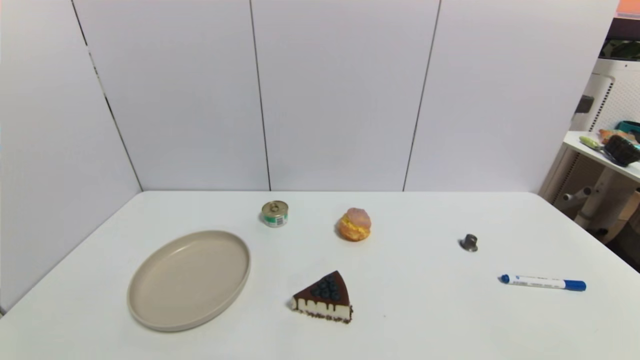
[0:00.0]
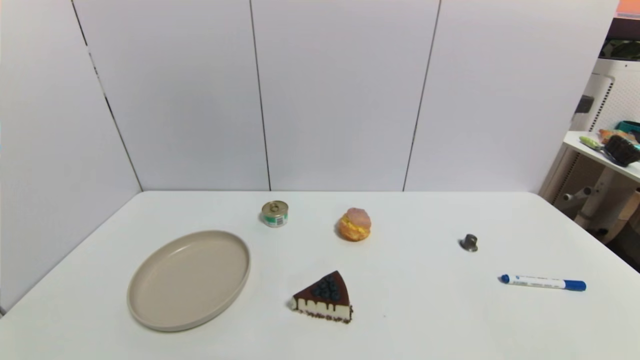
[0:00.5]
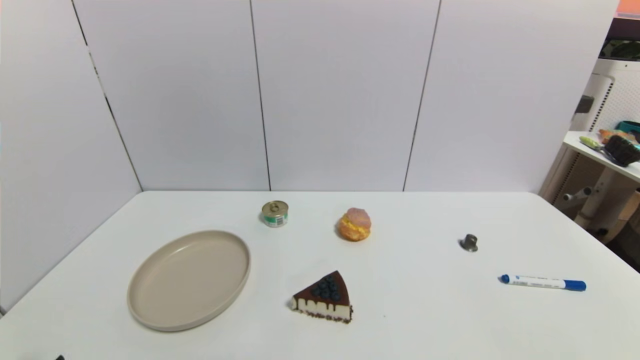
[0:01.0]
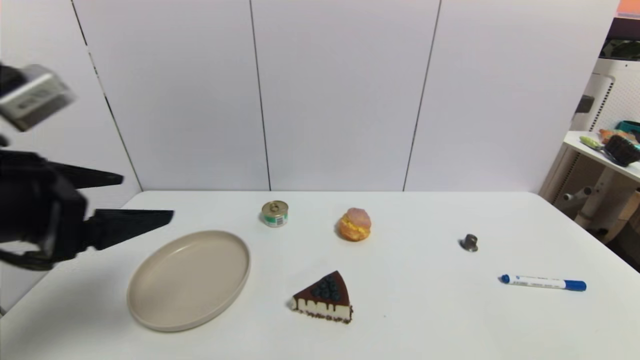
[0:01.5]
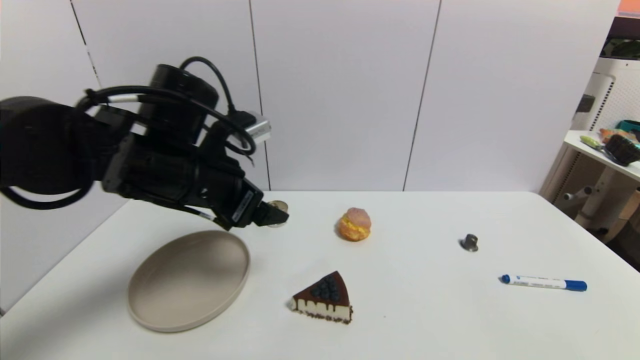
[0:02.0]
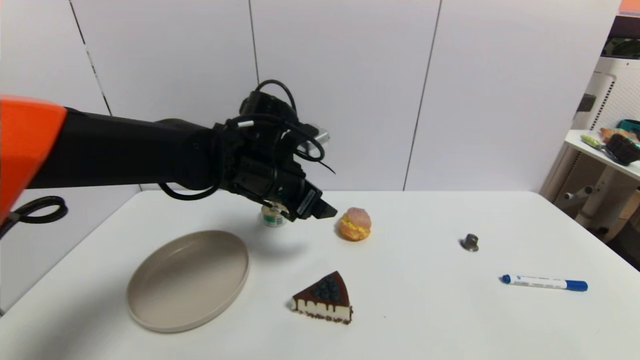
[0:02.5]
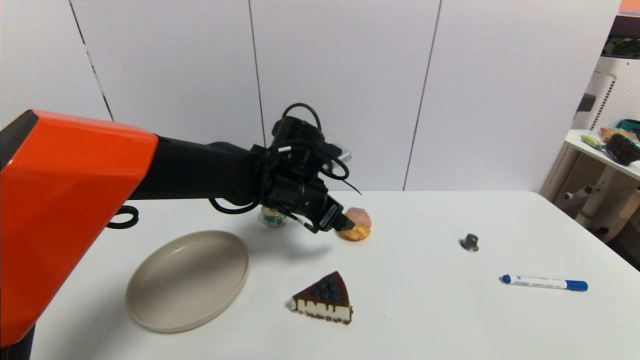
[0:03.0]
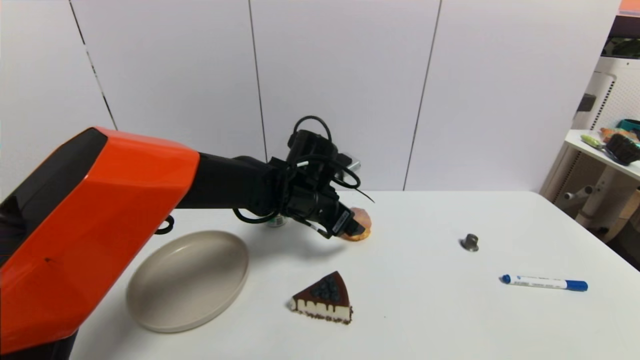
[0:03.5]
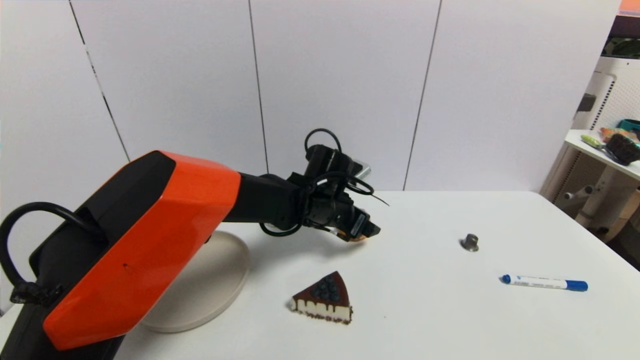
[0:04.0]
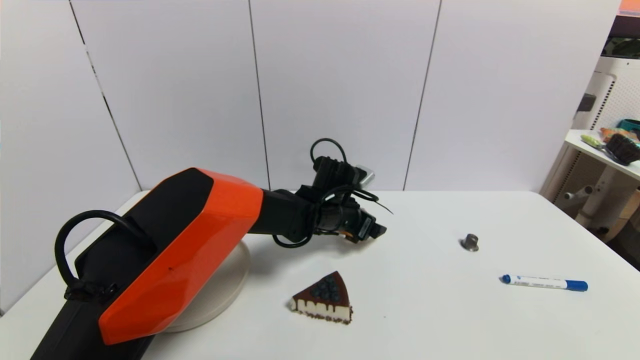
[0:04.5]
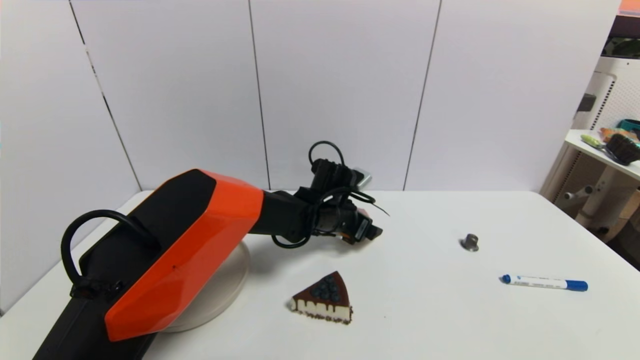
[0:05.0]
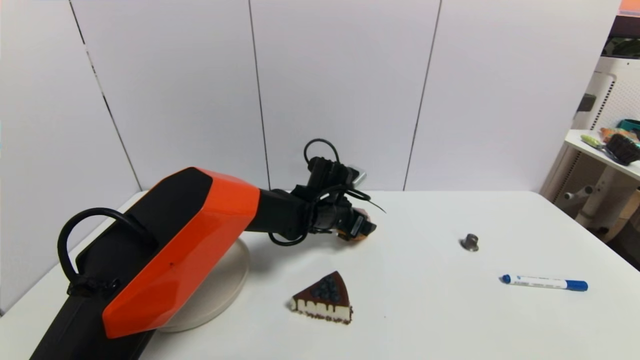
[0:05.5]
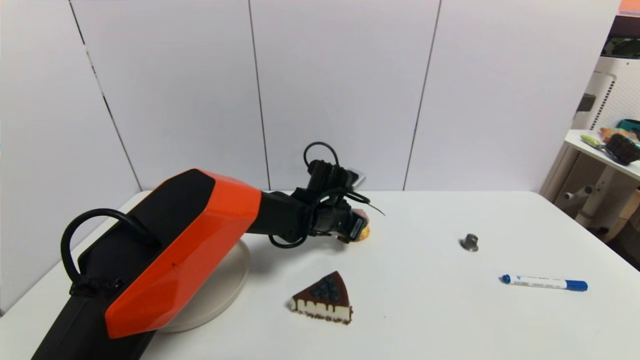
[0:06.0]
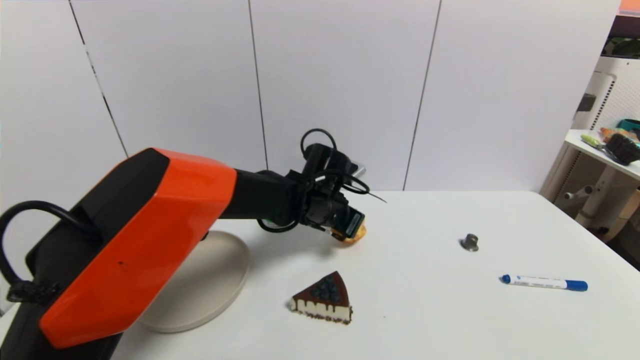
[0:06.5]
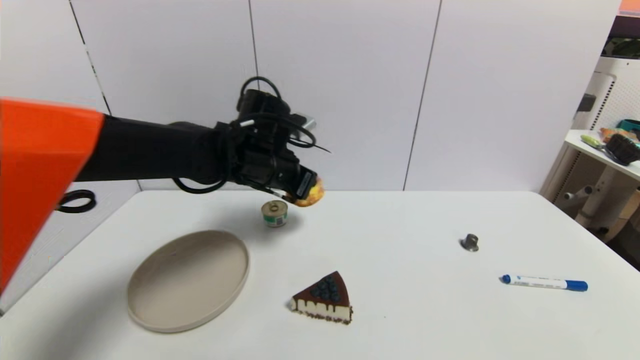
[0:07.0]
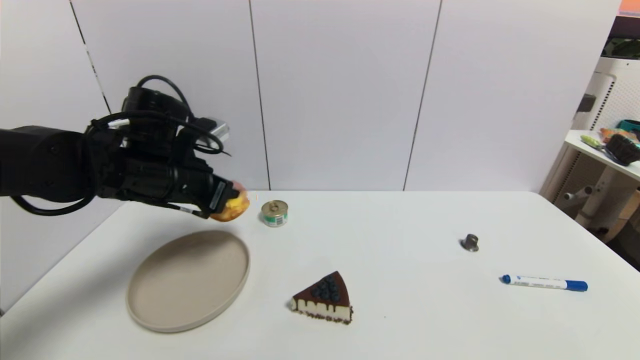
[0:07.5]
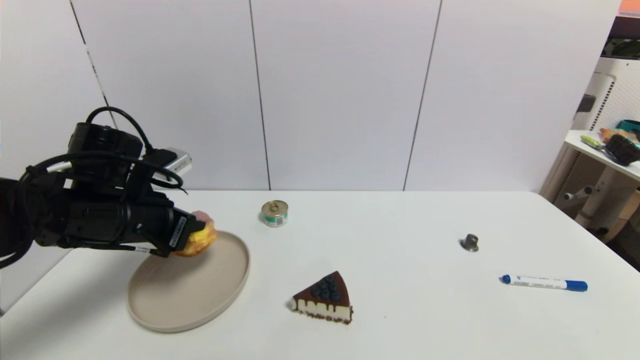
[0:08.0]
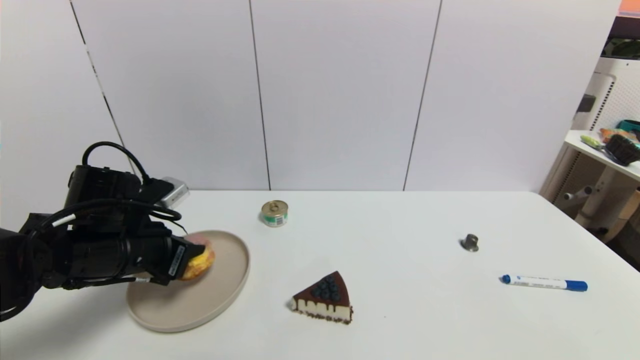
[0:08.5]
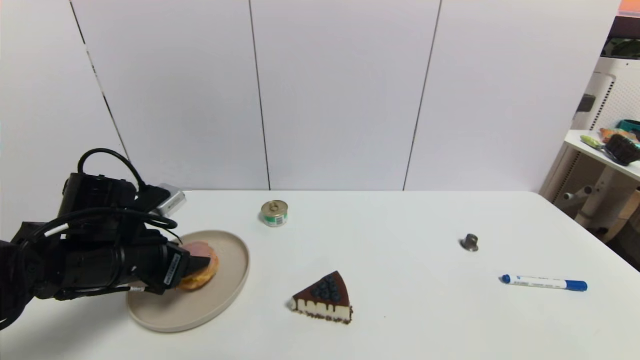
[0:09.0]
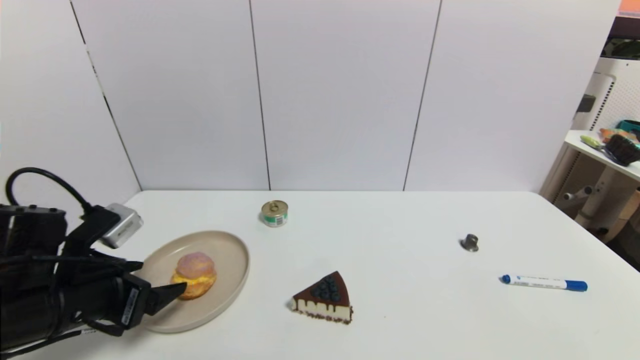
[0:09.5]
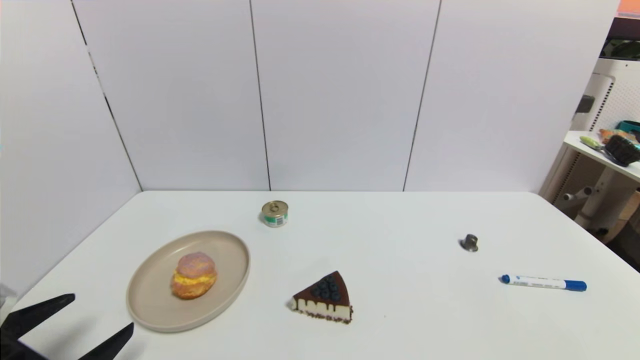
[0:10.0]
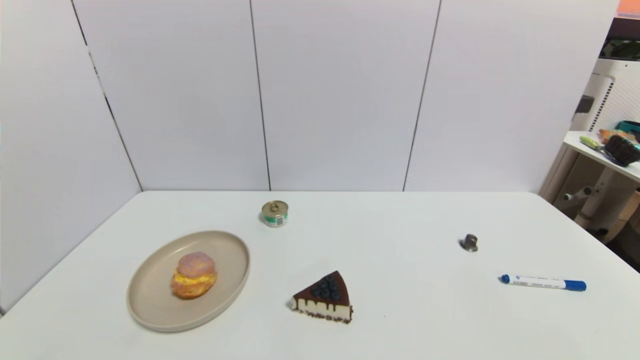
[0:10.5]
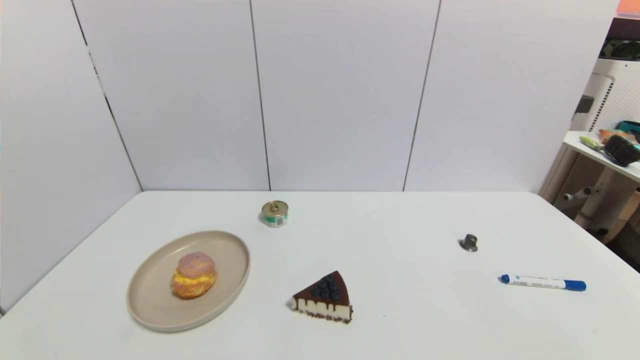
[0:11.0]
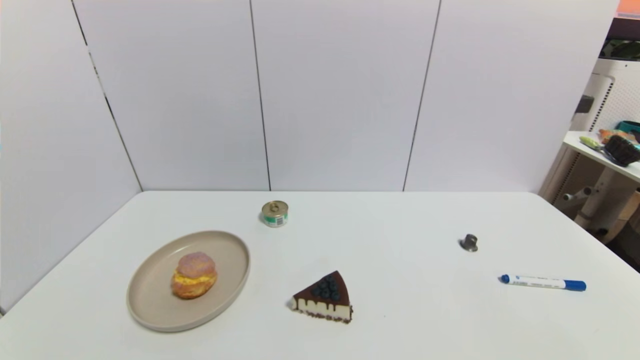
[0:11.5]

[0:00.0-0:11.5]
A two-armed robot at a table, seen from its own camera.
Task of the whole recording: use a gripper to pick the target object and place on the brown plate.
Step, 0:00.0 to 0:06.0: Grasp the round bread with the left gripper.
Step, 0:06.5 to 0:09.0: Place the round bread on the brown plate with the left gripper.
0:00.0 to 0:02.0: The left gripper heads forward, upward and to the right, covering roughly 35 cm.
0:02.0 to 0:04.0: The left gripper moves to the right, downward and forward, approximately 20 cm.
0:04.0 to 0:06.0: The left gripper closes.
0:06.0 to 0:07.5: The left gripper travels to the left, upward and backward by roughly 30 cm.
0:07.5 to 0:09.5: The left gripper heads backward, downward and to the left, covering some 15 cm, and opens.
0:09.5 to 0:11.5: The left gripper moves backward and downward, some 20 cm.

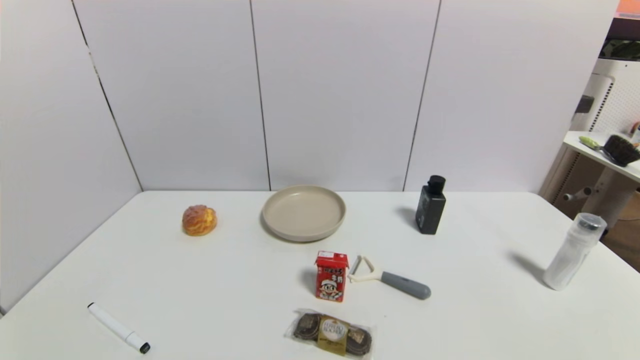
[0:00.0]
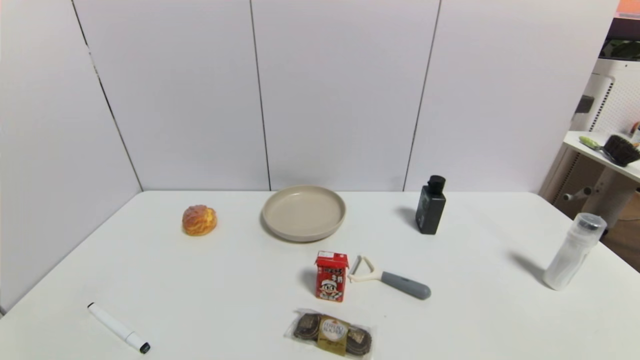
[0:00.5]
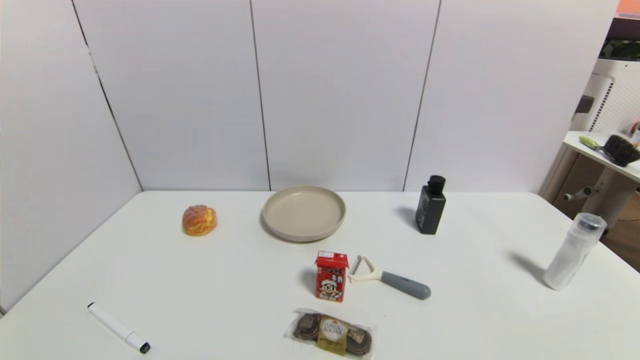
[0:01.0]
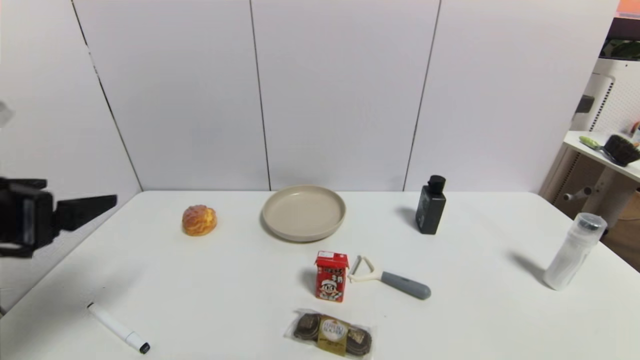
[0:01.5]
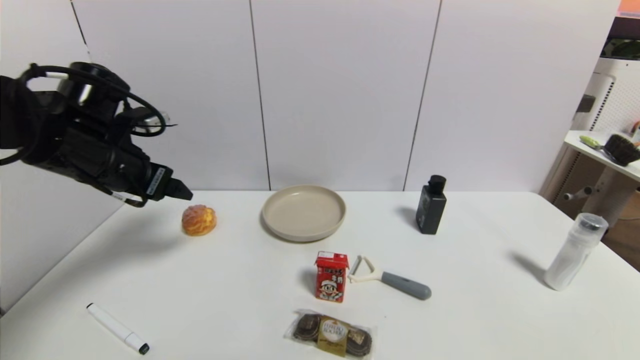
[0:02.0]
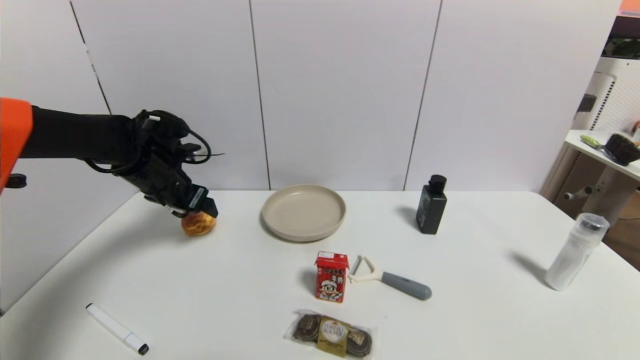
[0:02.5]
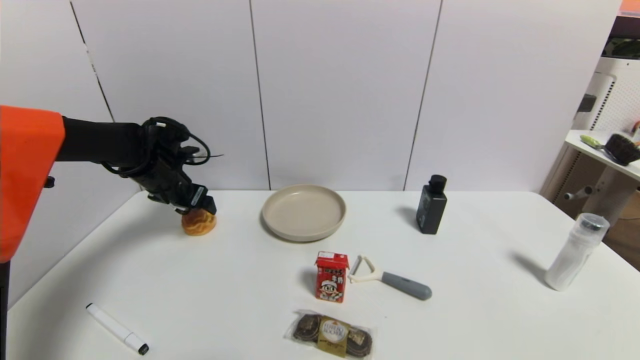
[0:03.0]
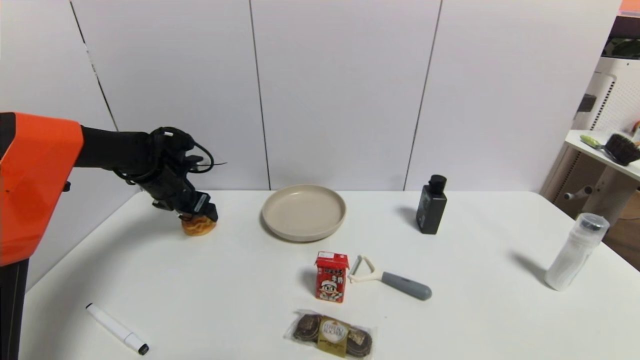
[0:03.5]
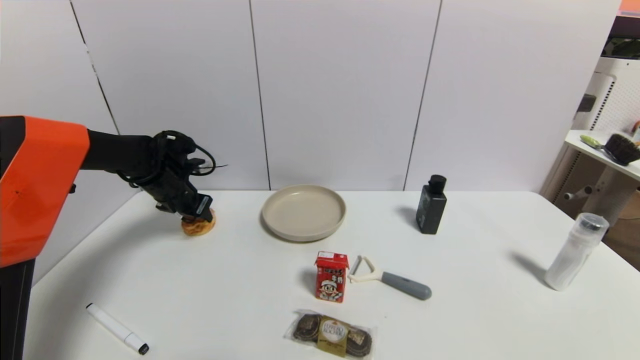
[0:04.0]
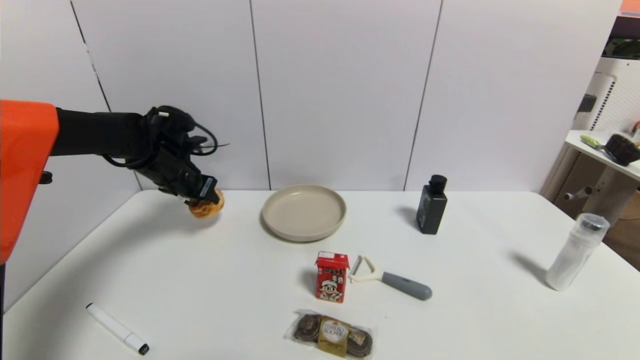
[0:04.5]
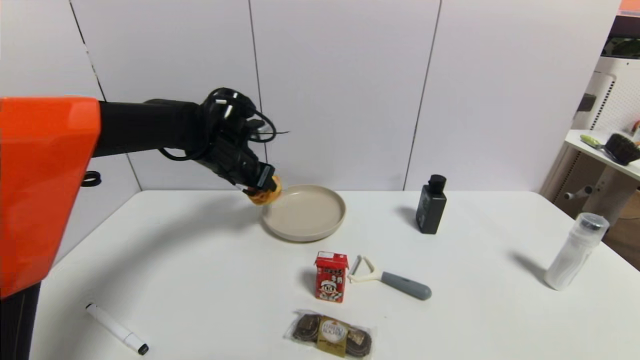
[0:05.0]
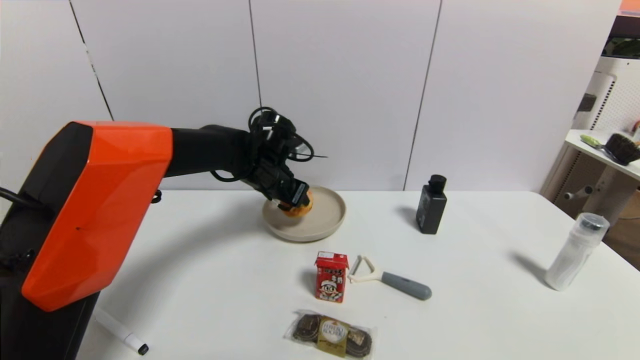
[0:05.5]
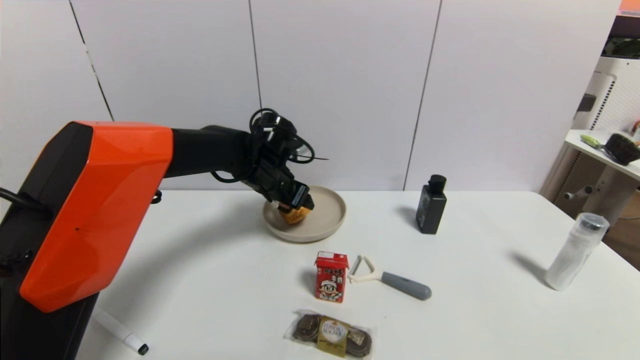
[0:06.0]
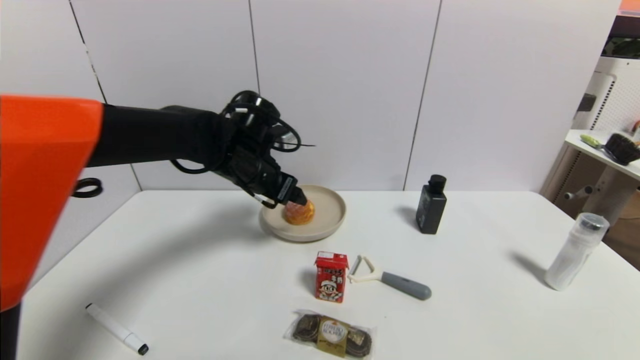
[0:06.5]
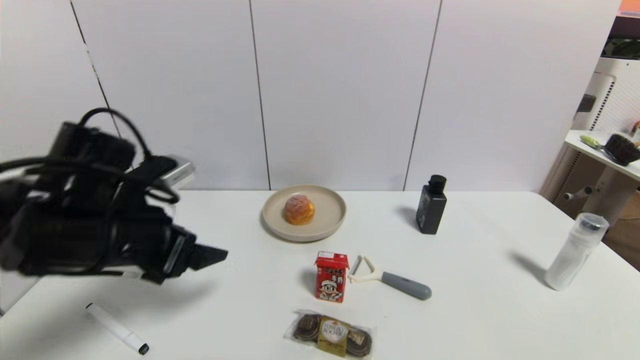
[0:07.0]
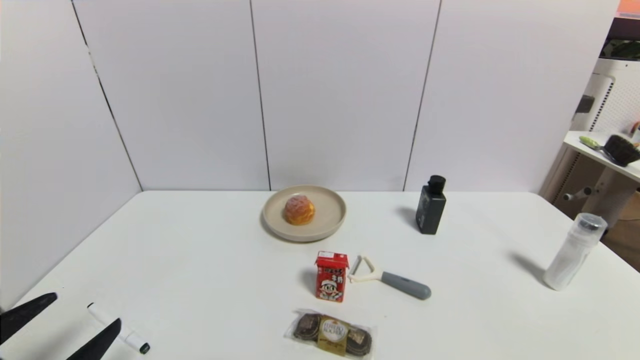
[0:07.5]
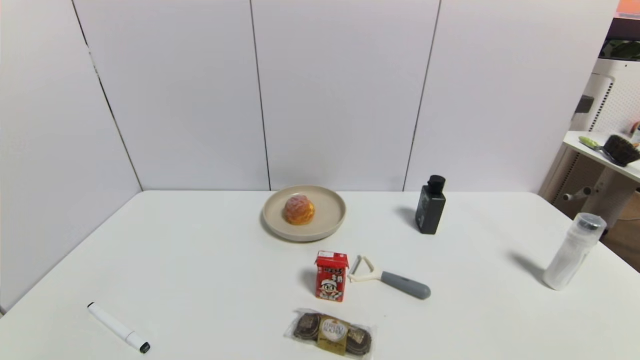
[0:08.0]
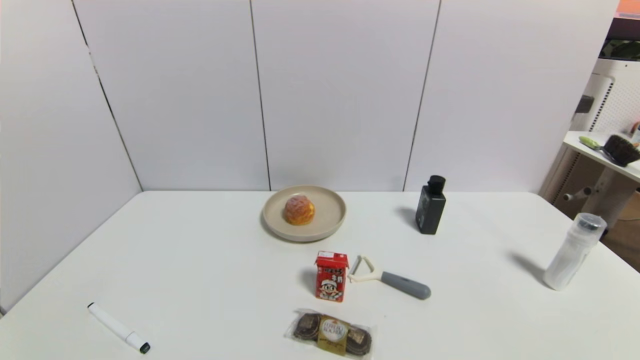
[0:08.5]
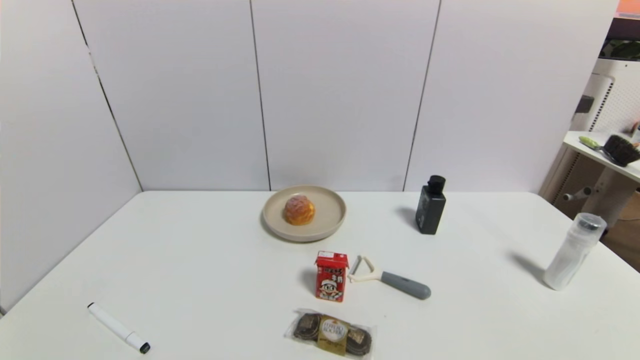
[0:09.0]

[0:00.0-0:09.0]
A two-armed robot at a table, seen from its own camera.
Task of the whole recording: use a gripper to pick the target object and place on the brown plate.
Step, 0:00.0 to 0:04.0: Grasp the round bread with the left gripper.
Step, 0:04.5 to 0:06.0: Place the round bread on the brown plate with the left gripper.
0:00.0 to 0:02.0: The left gripper shifts some 35 cm forward and upward.
0:02.0 to 0:04.5: The left gripper shifts roughly 10 cm forward and downward, and closes its fingers.
0:04.5 to 0:07.0: The left gripper is displaced backward by roughly 20 cm, and opens.
0:07.0 to 0:09.0: The left gripper shifts about 25 cm backward and downward.
